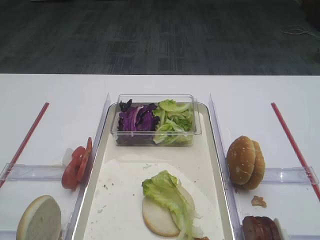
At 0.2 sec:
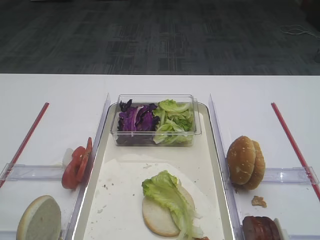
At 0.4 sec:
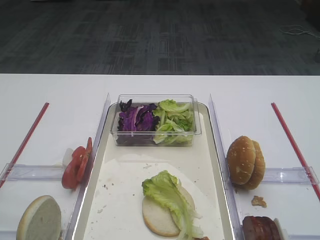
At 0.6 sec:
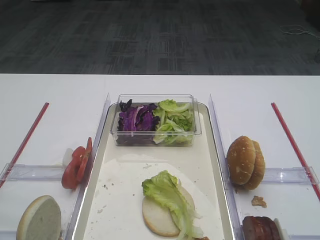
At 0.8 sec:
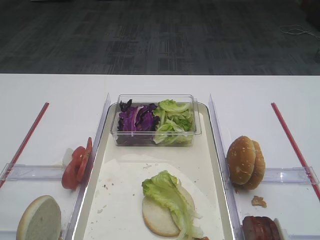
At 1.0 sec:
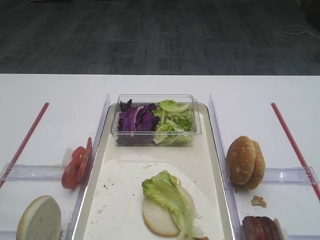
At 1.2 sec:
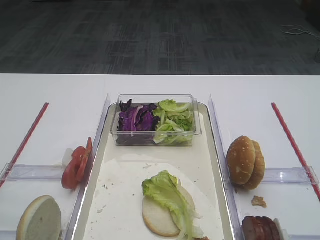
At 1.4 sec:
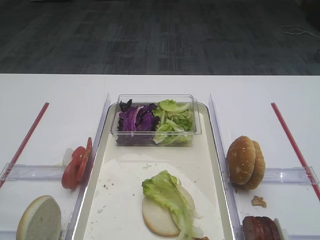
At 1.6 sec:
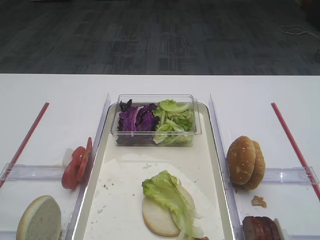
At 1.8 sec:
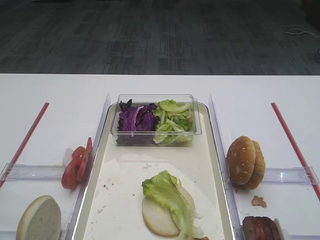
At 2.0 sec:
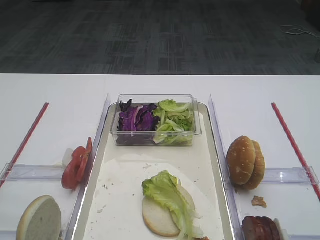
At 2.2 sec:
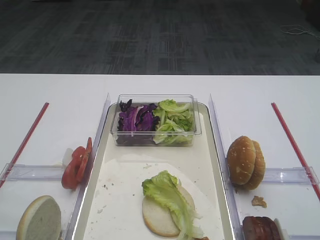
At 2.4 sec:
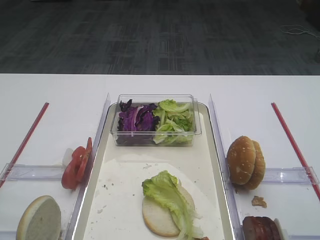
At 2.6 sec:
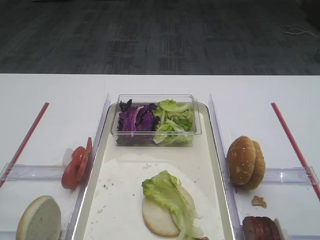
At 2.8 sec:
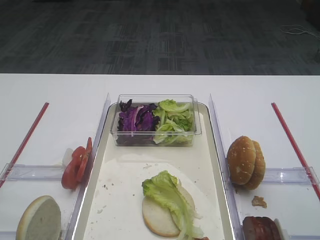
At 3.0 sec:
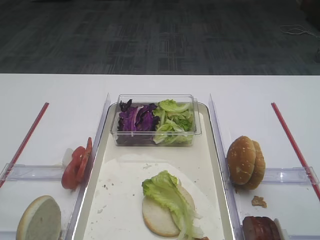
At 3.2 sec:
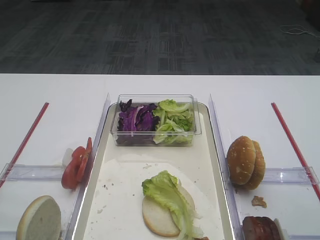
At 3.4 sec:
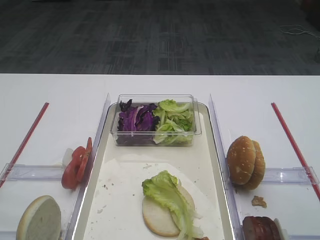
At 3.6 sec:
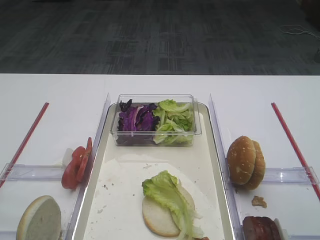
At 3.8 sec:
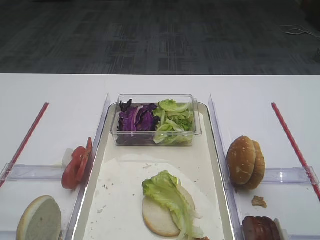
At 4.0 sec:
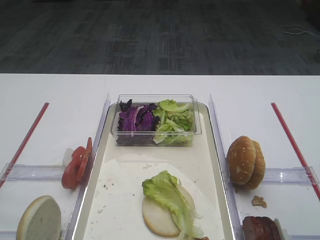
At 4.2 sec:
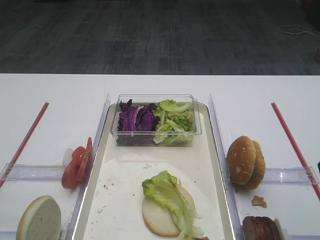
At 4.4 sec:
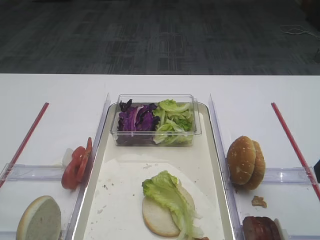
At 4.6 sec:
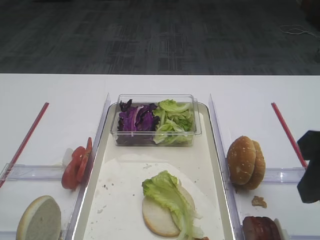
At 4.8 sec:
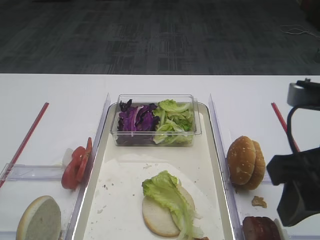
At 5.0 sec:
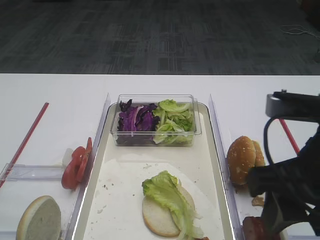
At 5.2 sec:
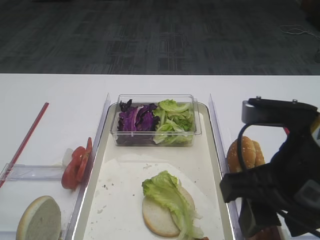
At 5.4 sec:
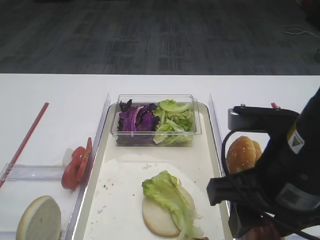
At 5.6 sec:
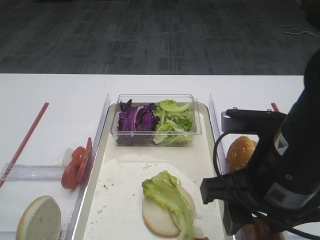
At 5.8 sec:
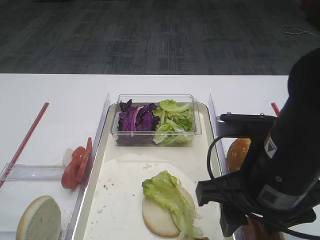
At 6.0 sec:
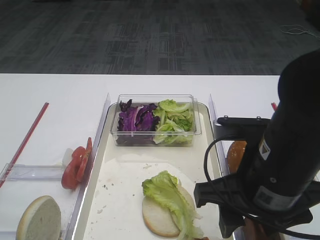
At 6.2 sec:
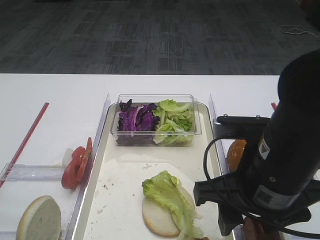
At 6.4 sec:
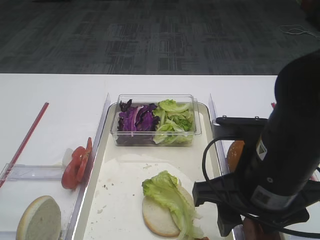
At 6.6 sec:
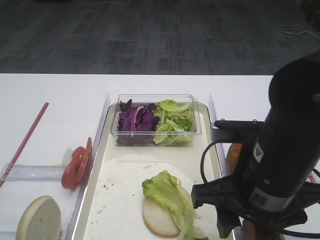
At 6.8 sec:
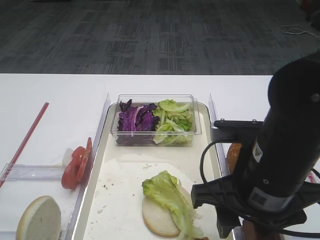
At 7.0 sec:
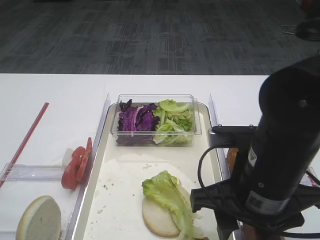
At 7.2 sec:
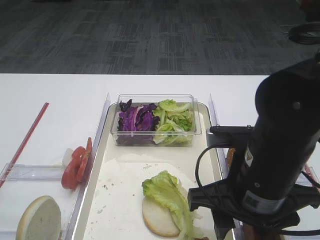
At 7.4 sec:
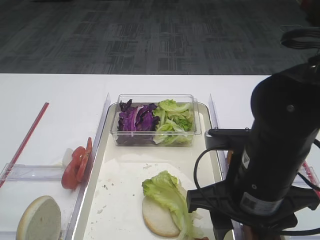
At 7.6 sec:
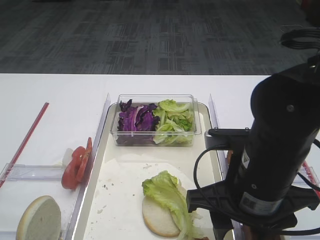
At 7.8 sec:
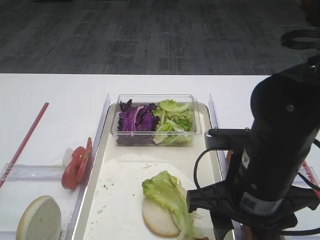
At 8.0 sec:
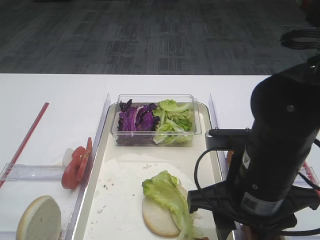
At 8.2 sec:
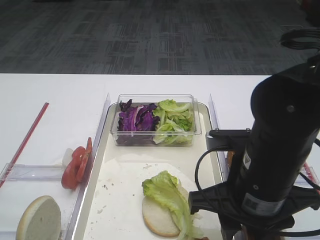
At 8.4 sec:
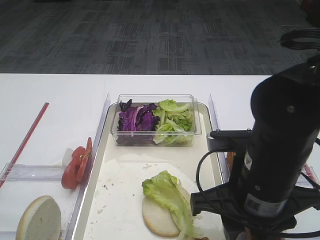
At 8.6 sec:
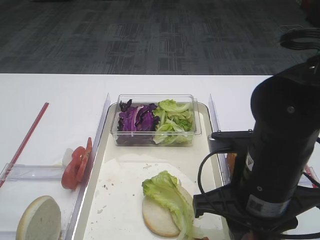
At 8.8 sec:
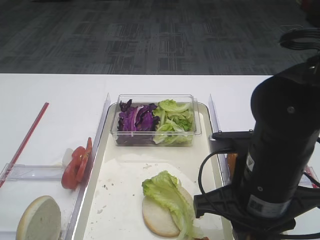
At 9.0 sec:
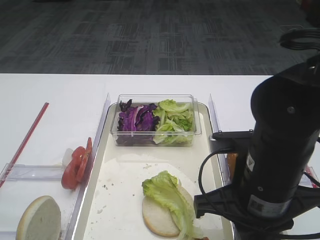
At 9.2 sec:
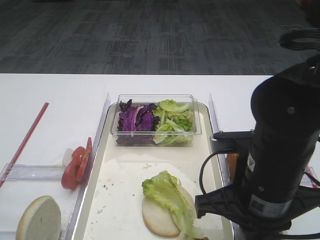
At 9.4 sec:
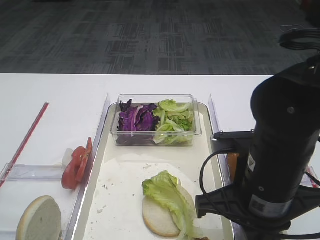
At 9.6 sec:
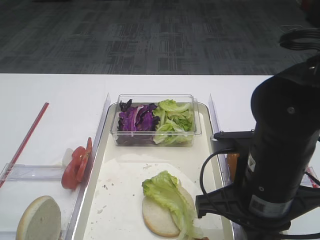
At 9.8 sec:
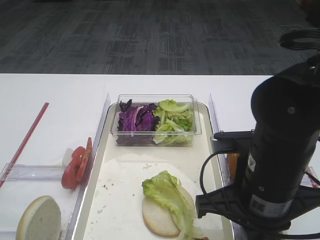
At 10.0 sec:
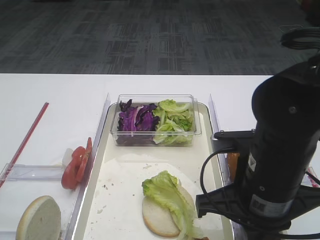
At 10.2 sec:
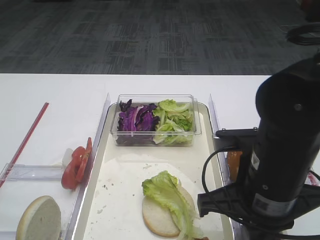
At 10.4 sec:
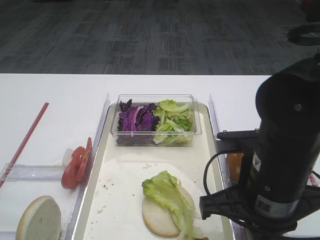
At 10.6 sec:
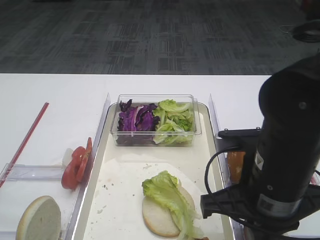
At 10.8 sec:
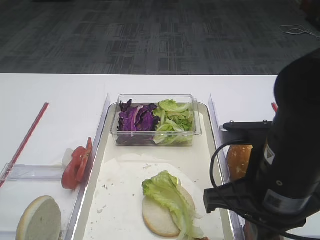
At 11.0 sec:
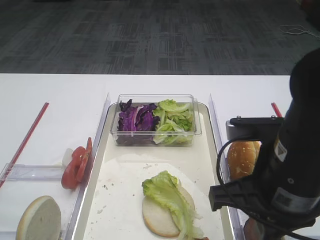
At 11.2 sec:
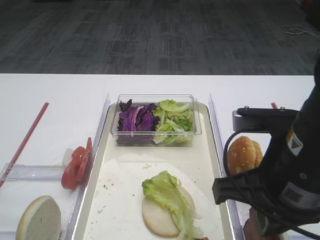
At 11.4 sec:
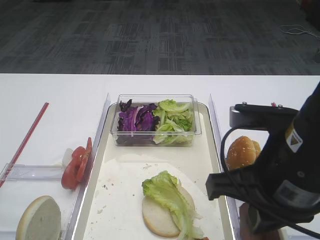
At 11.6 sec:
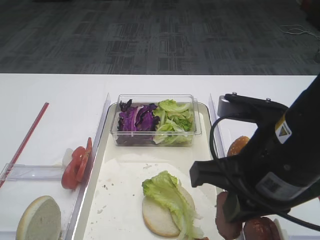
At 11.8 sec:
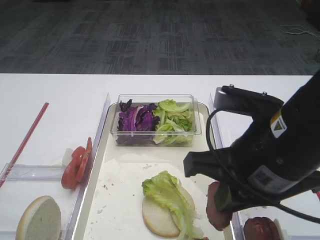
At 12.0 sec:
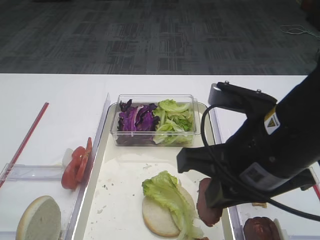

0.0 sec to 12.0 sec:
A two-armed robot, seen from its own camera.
Step, 0.0 sec to 11.2 sec: Pick up the cutlet with the right gripper.
4.4 sec to 6.0 sec: The right gripper goes roughly 15 cm to the left and downward.
6.0 sec to 7.6 sec: There are only small adjustments of the grippers.
7.6 sec to 9.0 sec: The right gripper closes its fingers.
9.0 sec to 10.4 sec: Both grippers stay put.
10.4 sec to 12.0 sec: The right gripper travels upward by about 5 cm.

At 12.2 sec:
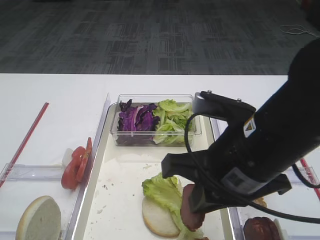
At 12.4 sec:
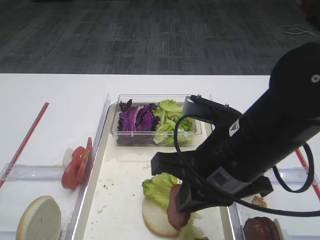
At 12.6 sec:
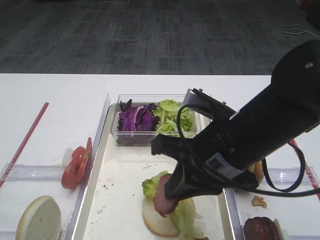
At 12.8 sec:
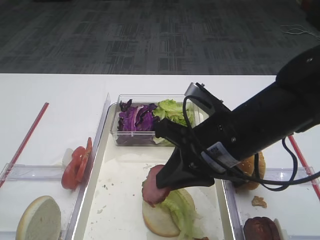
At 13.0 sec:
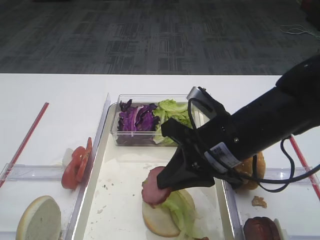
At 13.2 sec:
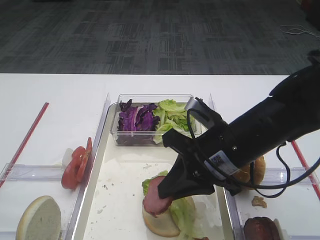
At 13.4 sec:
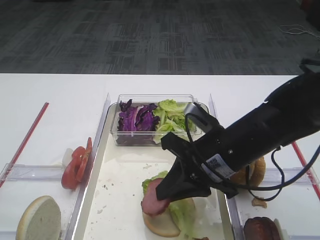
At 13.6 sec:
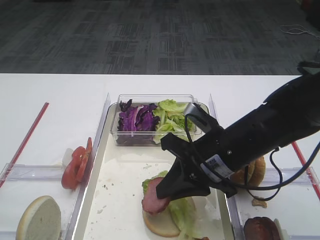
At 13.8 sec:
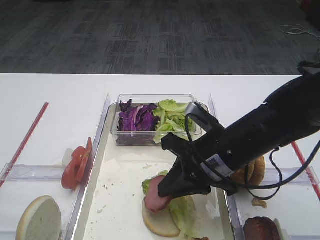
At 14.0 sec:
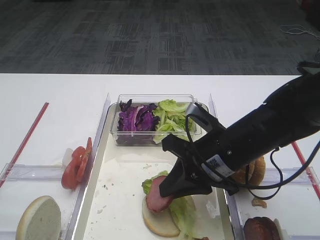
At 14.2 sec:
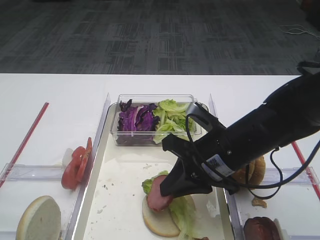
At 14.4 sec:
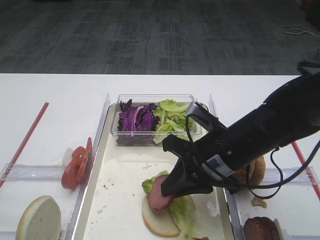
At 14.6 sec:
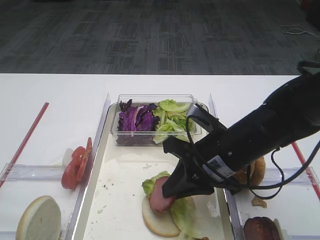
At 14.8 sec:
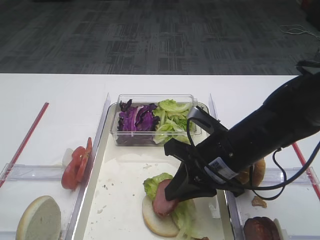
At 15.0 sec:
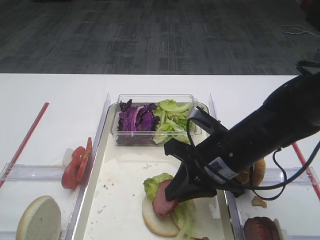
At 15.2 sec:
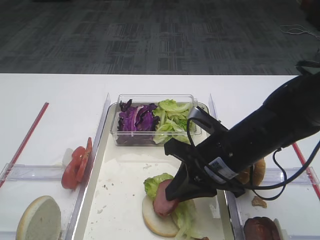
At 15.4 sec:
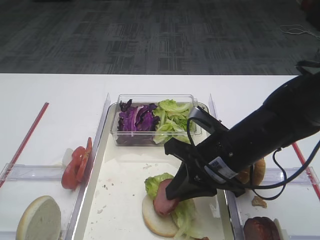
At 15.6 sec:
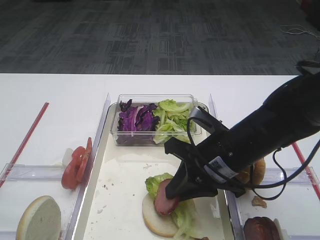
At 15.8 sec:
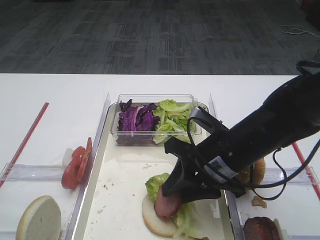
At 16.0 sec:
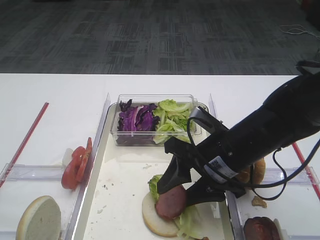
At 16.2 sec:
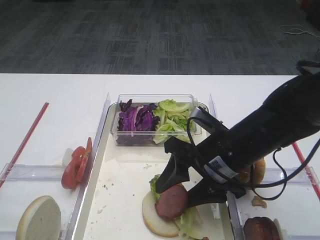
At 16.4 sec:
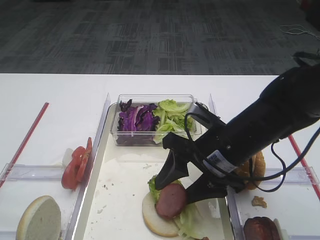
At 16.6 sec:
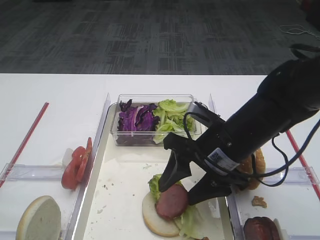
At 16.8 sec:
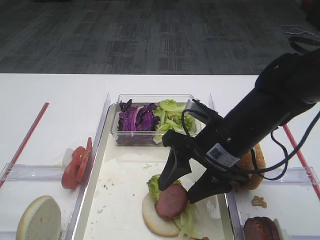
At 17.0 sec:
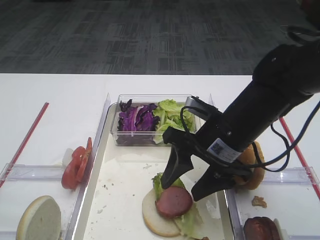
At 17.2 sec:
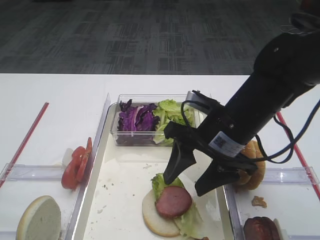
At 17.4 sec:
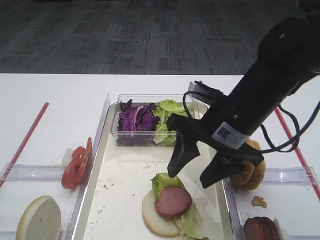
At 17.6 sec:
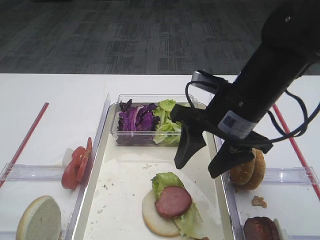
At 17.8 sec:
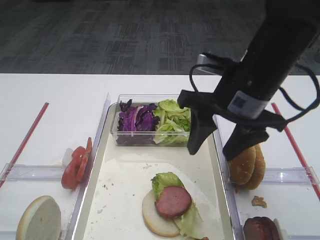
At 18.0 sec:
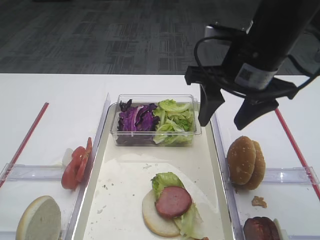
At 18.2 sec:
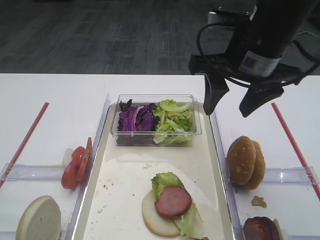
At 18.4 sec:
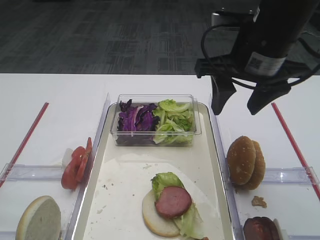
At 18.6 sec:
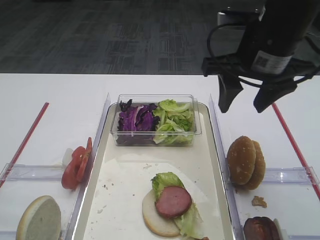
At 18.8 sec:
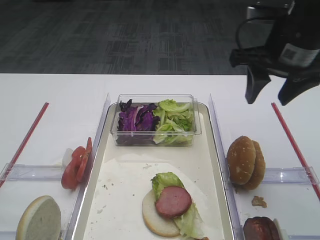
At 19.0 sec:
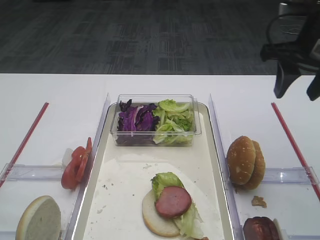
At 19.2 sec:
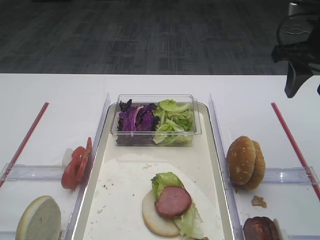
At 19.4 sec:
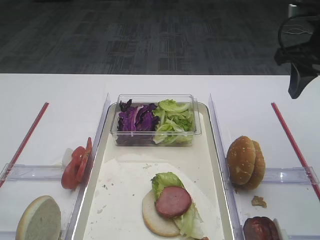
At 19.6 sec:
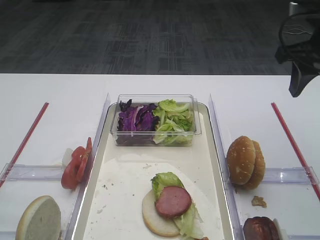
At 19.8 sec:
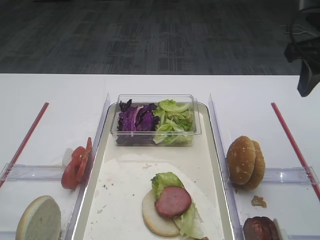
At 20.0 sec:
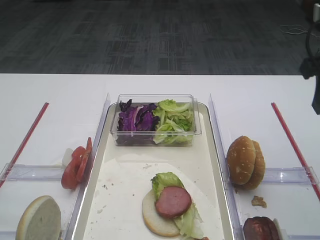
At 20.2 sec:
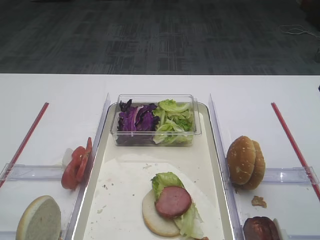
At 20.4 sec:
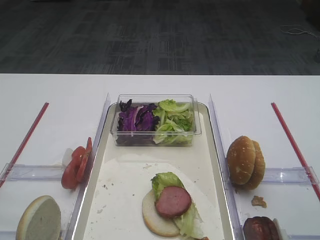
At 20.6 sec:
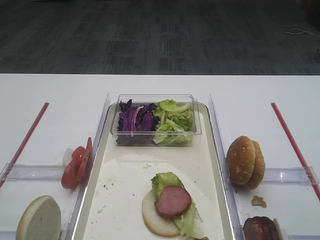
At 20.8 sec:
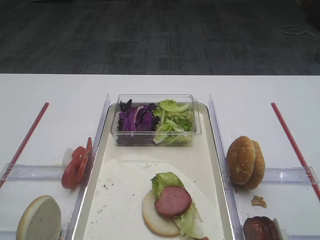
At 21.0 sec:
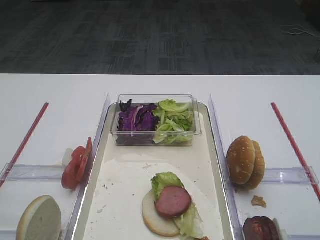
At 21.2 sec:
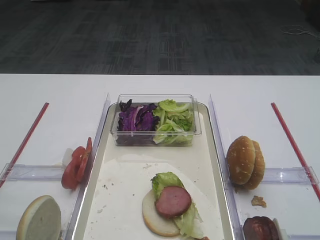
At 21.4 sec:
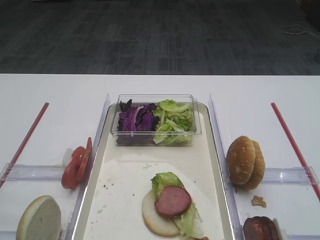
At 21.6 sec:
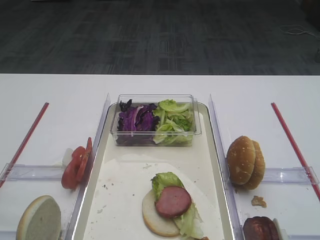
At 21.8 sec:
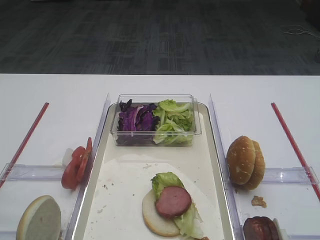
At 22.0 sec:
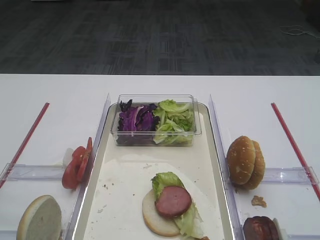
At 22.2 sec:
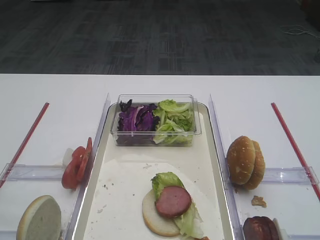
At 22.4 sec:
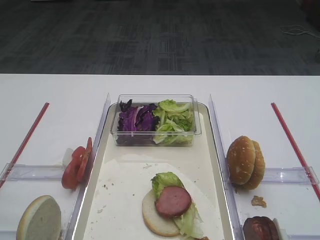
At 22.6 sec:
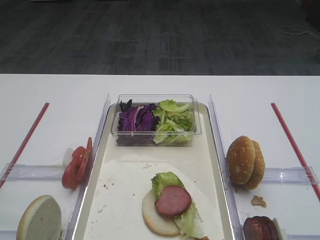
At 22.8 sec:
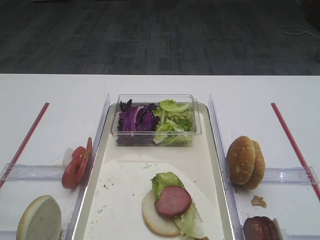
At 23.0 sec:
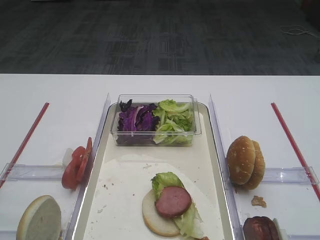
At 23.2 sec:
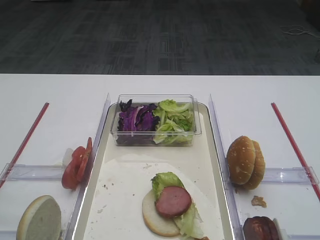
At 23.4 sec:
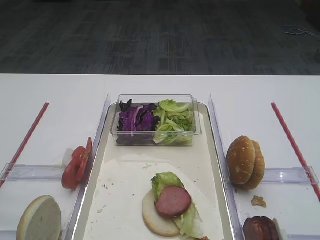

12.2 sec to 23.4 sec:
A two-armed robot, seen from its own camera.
Step, 12.2 sec to 17.0 sec: Place the cutlet on the lettuce leaf with the right gripper.
12.2 sec to 13.8 sec: The right gripper is displaced downward and forward by roughly 10 cm.
13.8 sec to 15.4 sec: The grippers stay close to where they were, moving slightly.
15.4 sec to 17.0 sec: The right gripper opens its fingers.
17.0 sec to 18.6 sec: The right gripper travels upward by roughly 10 cm.
18.6 sec to 20.2 sec: The right gripper shifts roughly 15 cm to the right and backward.
21.8 sec to 23.4 sec: Both grippers stay put.
